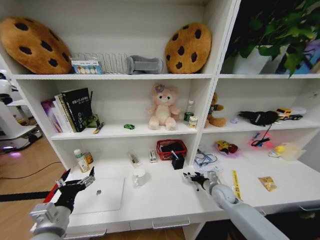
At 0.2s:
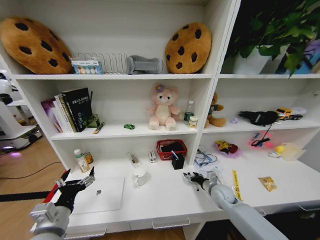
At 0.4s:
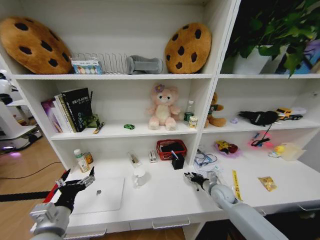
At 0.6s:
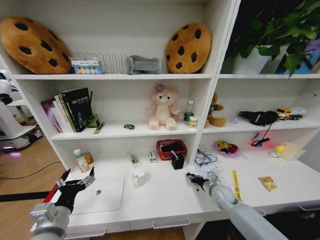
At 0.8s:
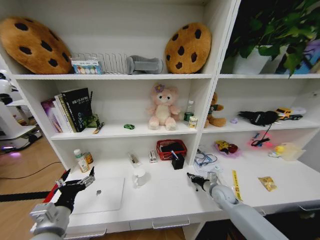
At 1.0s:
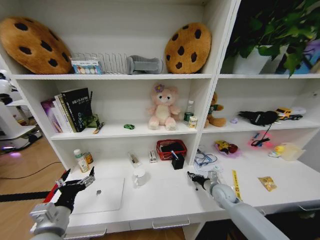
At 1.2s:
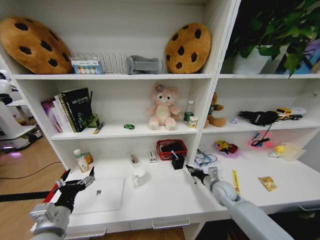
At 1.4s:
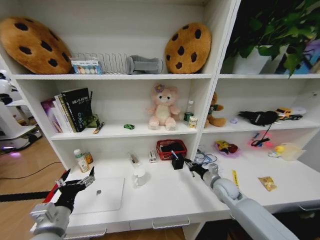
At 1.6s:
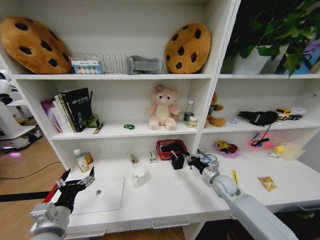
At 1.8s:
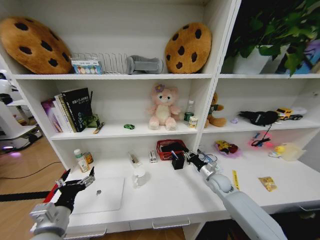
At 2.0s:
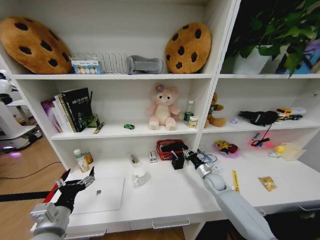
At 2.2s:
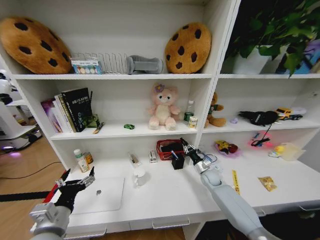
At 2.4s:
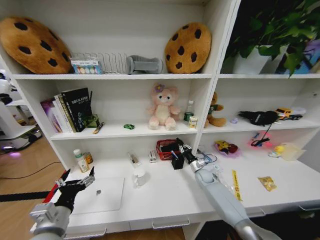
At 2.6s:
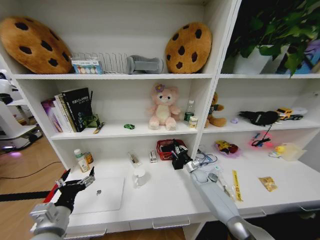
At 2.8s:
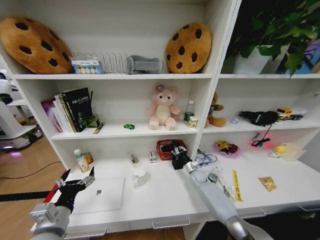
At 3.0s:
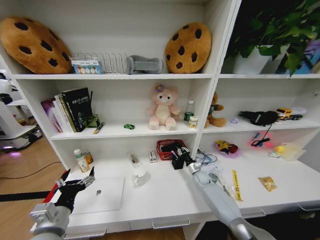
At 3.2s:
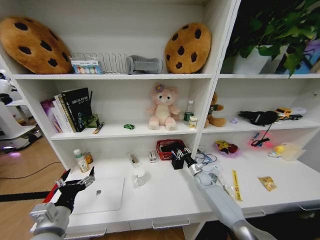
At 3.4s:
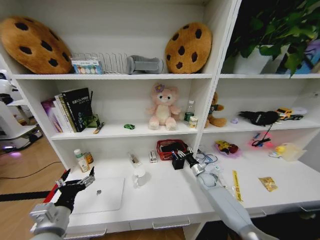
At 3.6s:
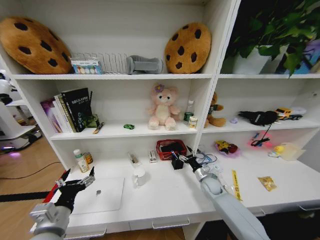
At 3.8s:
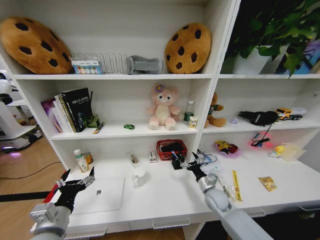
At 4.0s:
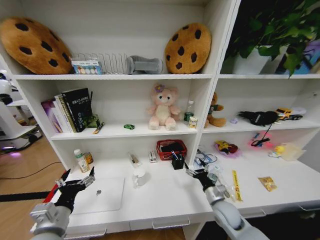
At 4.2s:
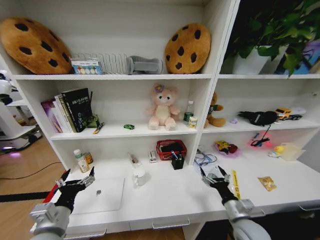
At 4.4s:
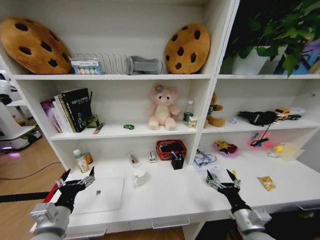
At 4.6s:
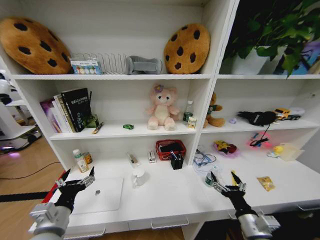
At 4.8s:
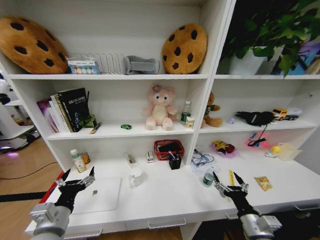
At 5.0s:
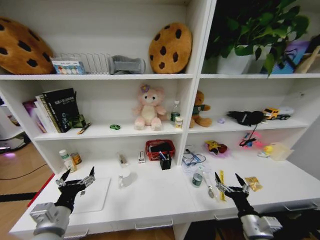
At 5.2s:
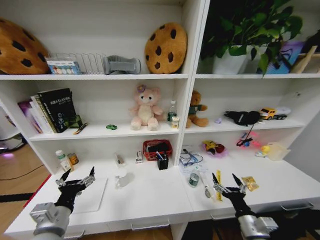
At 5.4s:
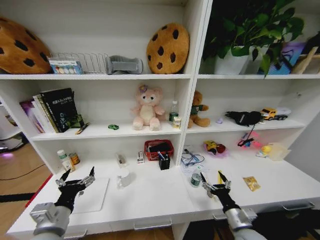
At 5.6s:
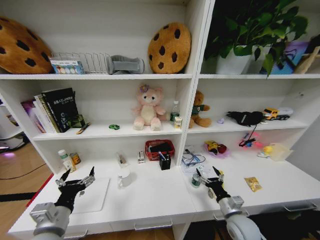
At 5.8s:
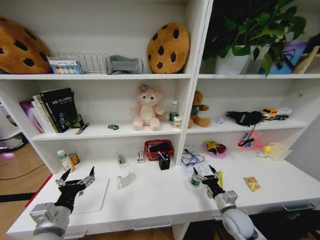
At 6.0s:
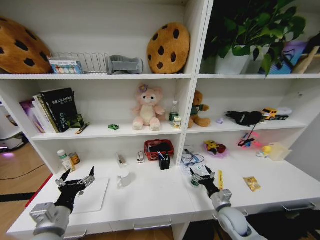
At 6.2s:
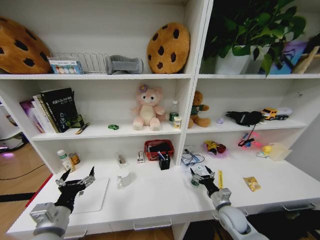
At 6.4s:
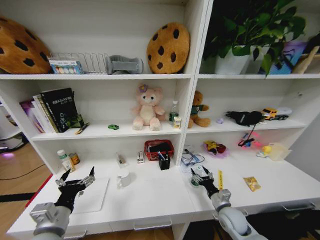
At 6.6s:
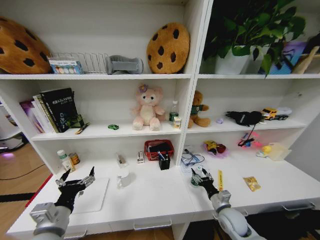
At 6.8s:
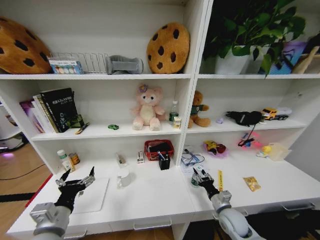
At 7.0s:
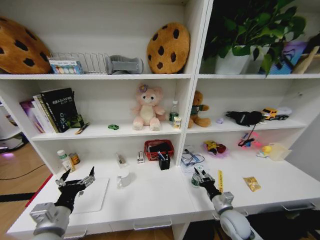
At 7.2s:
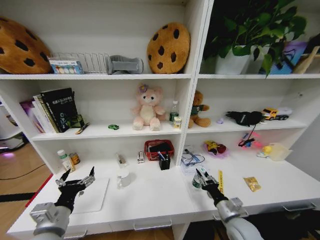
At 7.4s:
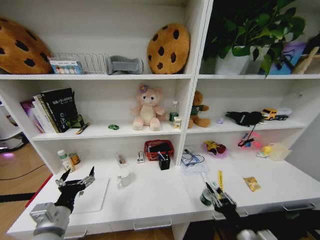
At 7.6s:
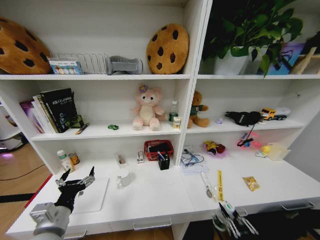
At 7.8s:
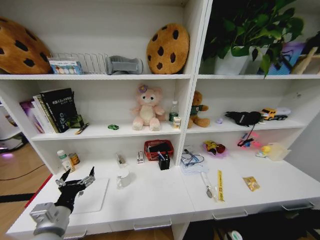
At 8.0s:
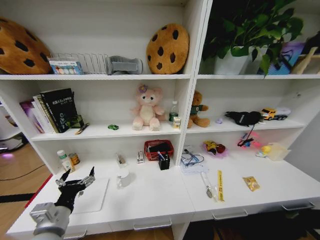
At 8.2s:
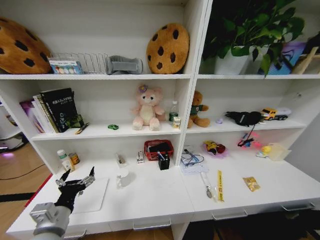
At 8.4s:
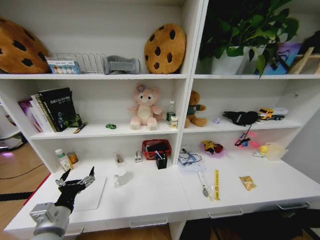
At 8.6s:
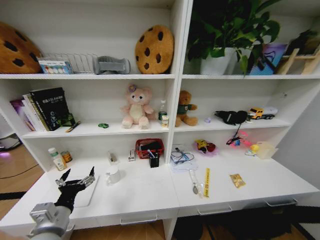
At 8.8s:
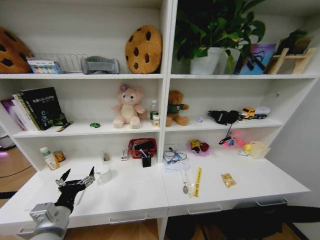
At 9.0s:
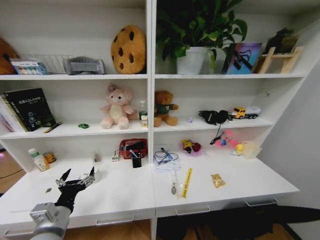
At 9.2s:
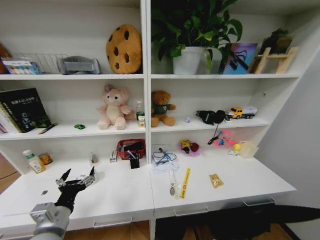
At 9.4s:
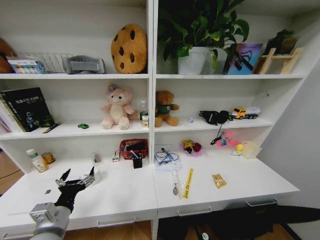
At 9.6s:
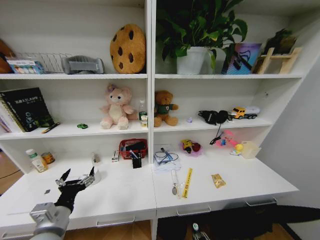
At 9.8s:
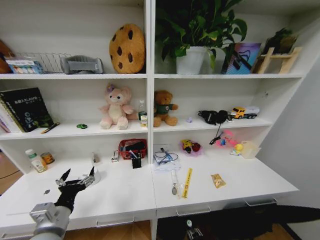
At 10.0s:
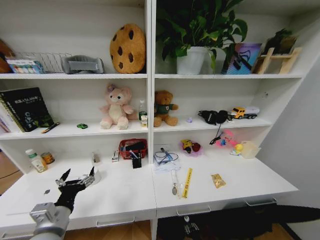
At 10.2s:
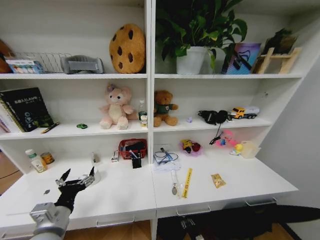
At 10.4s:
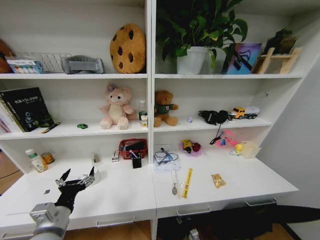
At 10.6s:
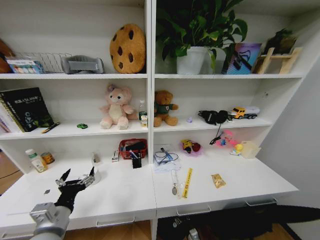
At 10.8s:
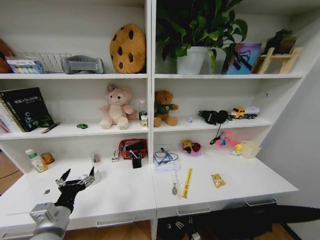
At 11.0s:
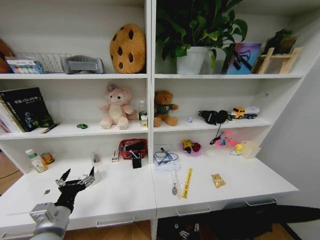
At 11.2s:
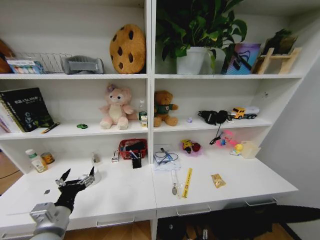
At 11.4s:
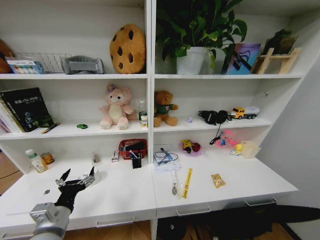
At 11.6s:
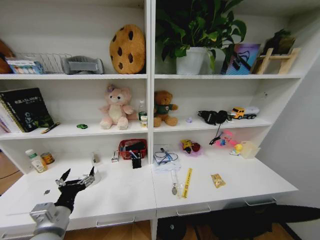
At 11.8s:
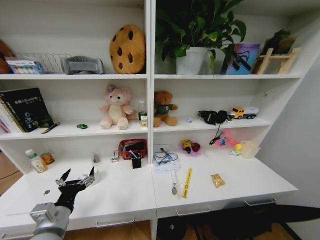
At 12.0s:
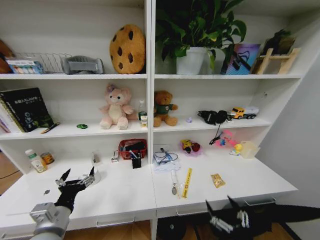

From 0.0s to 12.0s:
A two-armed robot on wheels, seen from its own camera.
Task of the whole recording: Organize the objects on the table.
From 0.0s to 1.6s: The right gripper is displaced upward by some 5 cm, and closes.
From 1.6s to 3.0s: The right gripper shifts roughly 15 cm downward and forward.
From 3.0s to 4.4s: The right gripper goes some 35 cm backward and upward, and opens its fingers.
From 4.4s to 6.0s: The right gripper travels forward and downward by approximately 10 cm.
From 6.0s to 7.6s: The right gripper goes roughly 25 cm backward, and closes.
From 7.6s to 9.0s: The right gripper is displaced downward and backward by about 25 cm.
From 9.0s to 10.4s: The right gripper is displaced forward, downward and to the left by about 30 cm.
From 10.4s to 12.0s: The right gripper travels upward by about 35 cm, and opens.

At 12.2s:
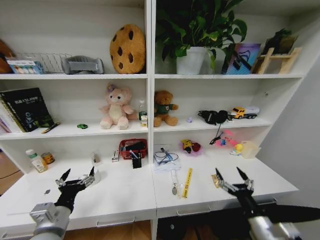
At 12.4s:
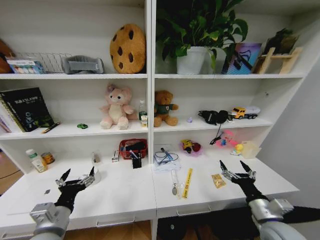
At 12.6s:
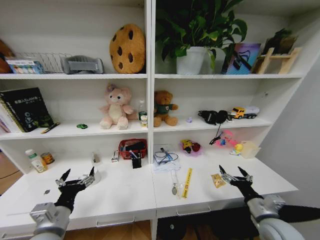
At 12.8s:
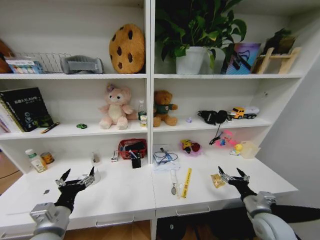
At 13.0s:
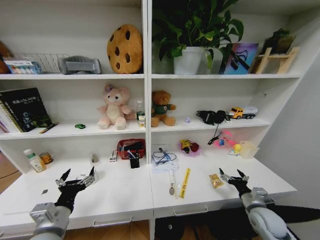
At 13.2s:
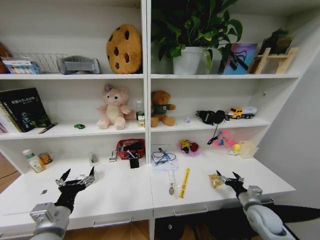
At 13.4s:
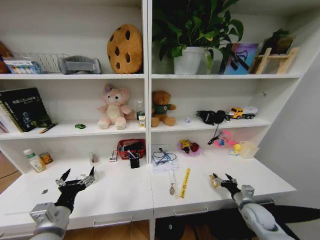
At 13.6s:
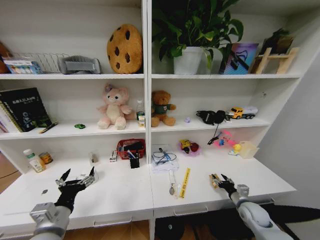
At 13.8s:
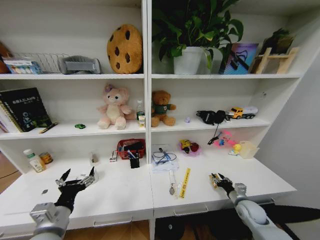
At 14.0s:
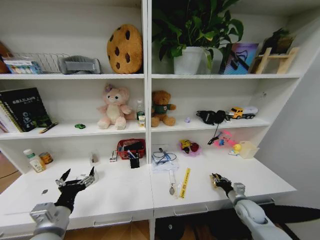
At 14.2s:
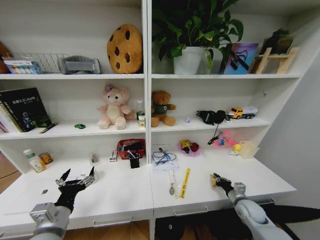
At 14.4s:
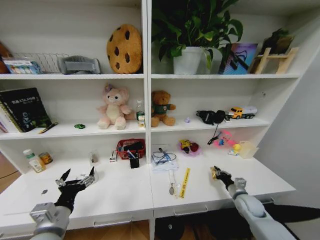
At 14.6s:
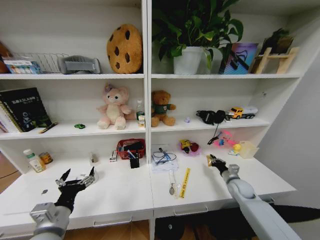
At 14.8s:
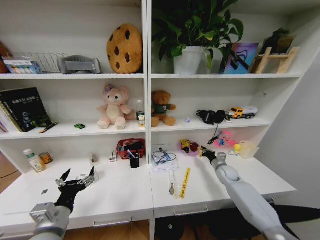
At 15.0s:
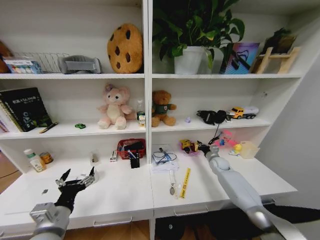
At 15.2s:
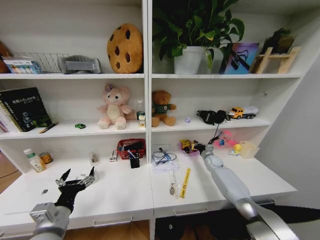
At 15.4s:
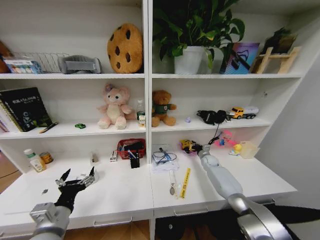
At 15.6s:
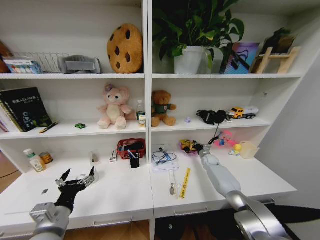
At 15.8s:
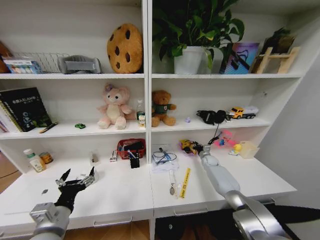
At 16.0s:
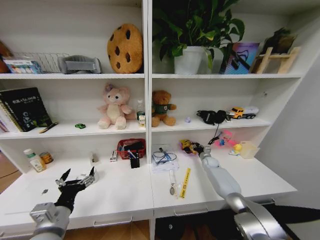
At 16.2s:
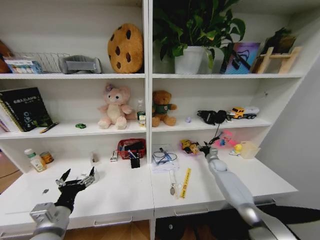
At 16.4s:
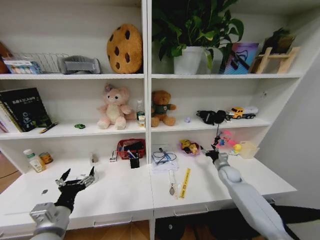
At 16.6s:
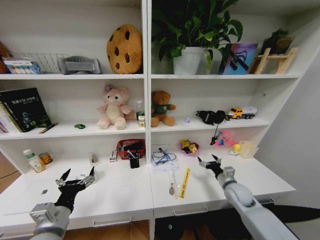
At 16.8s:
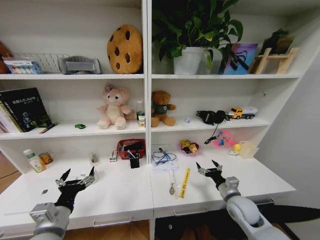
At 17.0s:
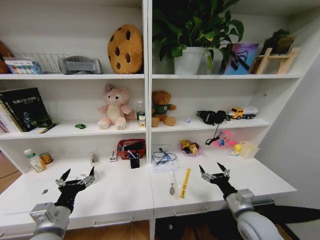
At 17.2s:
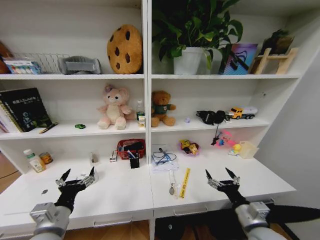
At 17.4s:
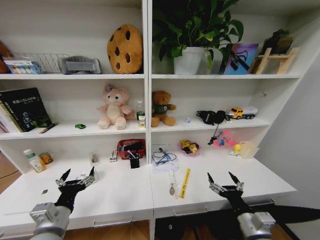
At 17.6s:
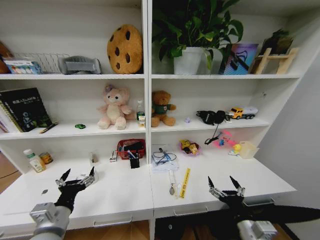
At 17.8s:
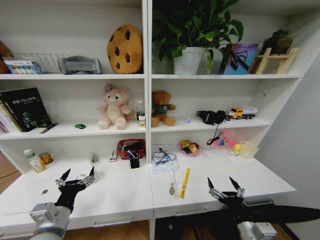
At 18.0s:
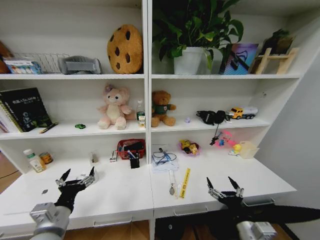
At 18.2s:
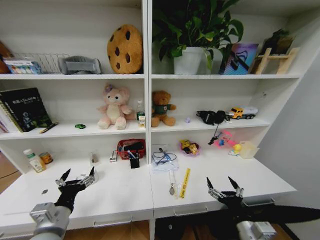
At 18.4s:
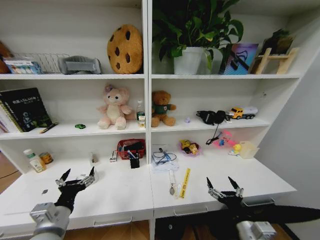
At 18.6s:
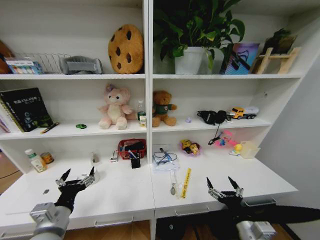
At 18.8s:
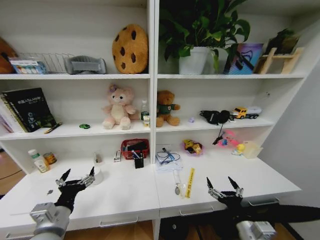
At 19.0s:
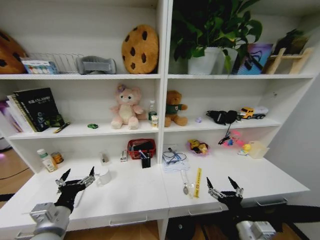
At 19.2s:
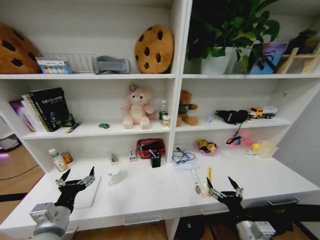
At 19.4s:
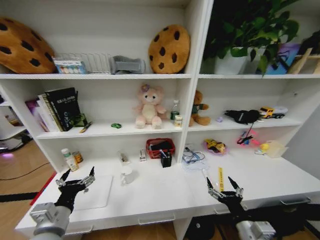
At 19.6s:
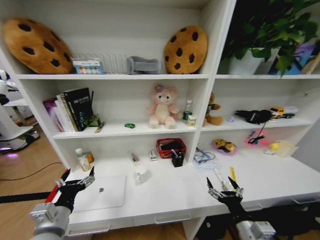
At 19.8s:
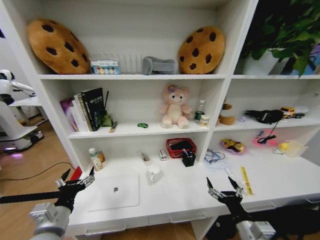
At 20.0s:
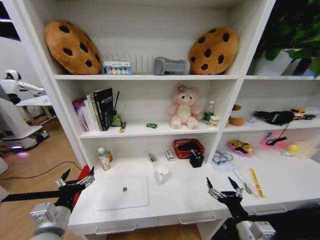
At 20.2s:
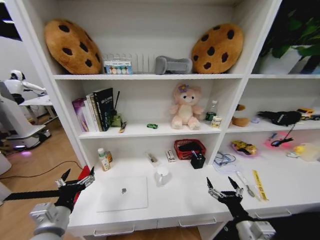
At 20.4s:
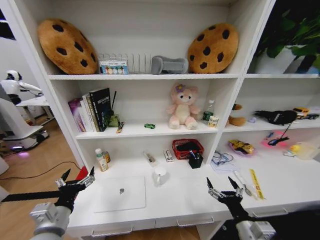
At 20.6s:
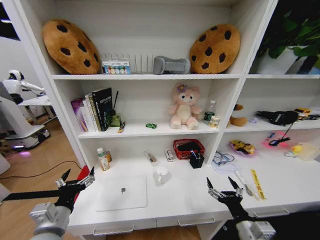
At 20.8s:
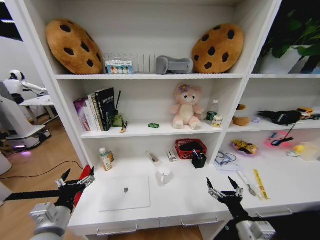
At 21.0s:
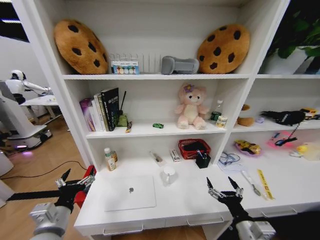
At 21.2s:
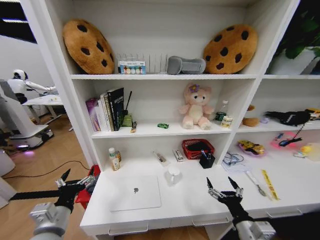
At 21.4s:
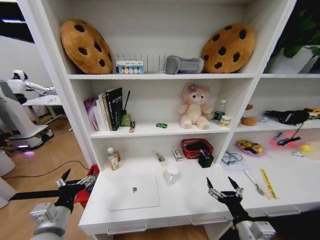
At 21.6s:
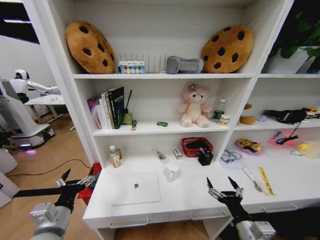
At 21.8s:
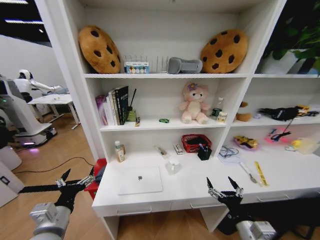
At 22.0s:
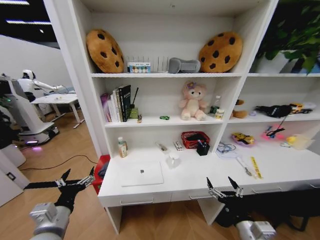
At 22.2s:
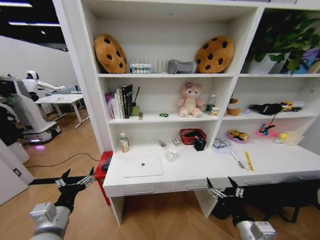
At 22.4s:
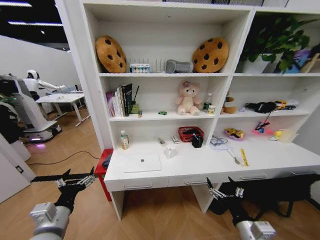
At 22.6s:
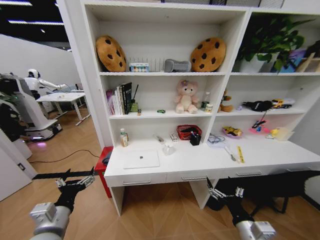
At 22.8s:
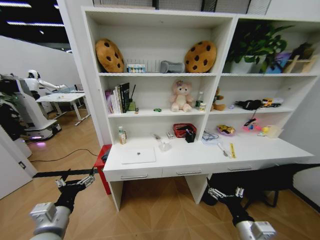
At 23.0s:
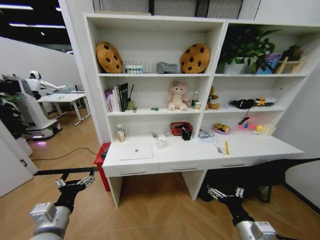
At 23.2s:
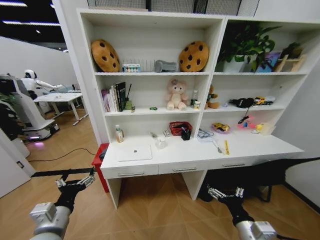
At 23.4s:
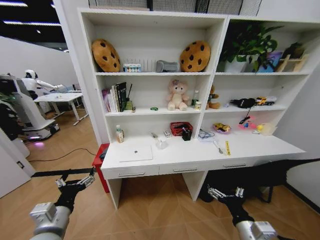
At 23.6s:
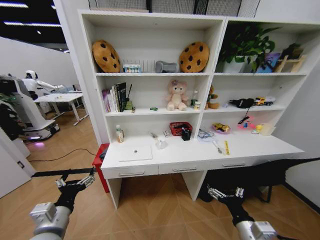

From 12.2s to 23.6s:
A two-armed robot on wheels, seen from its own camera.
Task of the whole recording: Organize the objects on the table.
From 12.2s to 13.6s: The right gripper heads forward, downward and to the right, covering approximately 20 cm.
From 13.6s to 15.0s: The right gripper travels forward by approximately 25 cm, and closes its fingers.
From 15.0s to 16.4s: The right gripper travels backward by approximately 10 cm, and opens up.
From 16.4s to 17.8s: The right gripper heads backward, covering some 30 cm.
